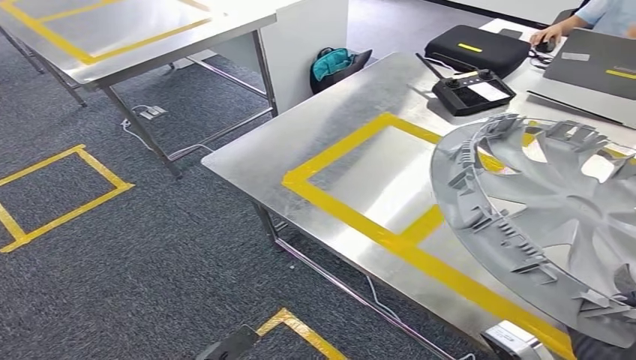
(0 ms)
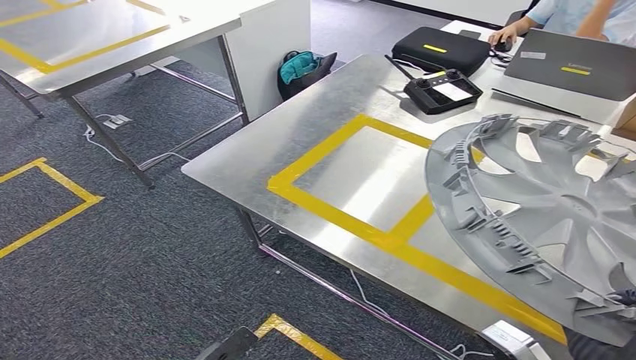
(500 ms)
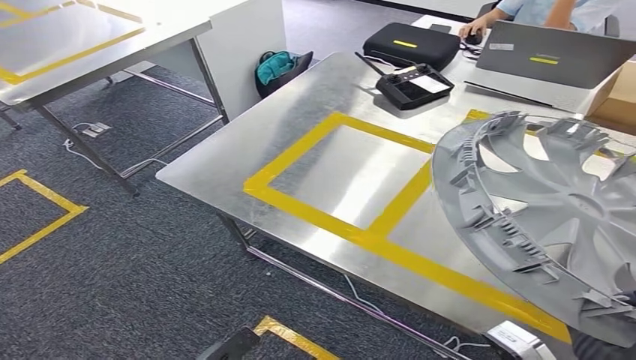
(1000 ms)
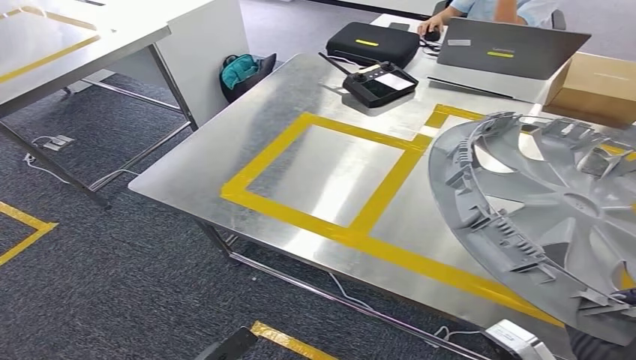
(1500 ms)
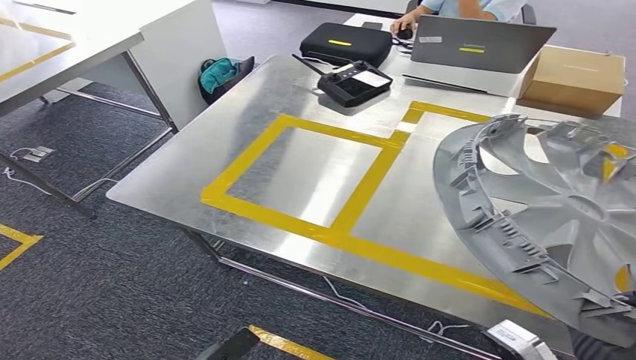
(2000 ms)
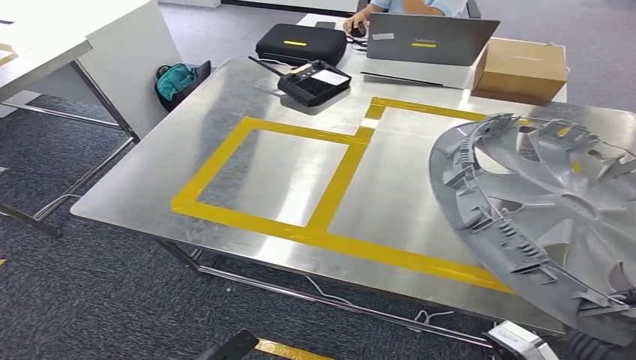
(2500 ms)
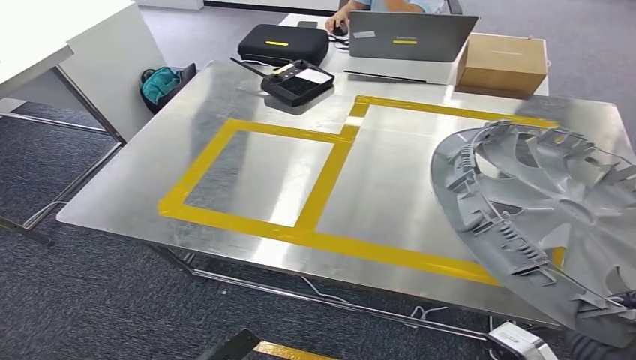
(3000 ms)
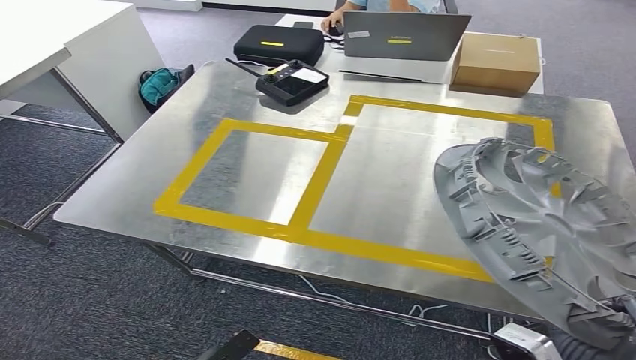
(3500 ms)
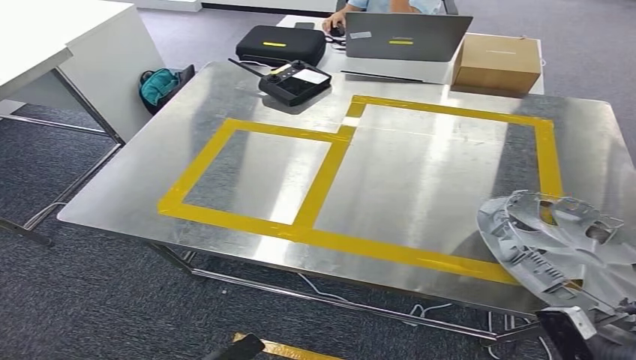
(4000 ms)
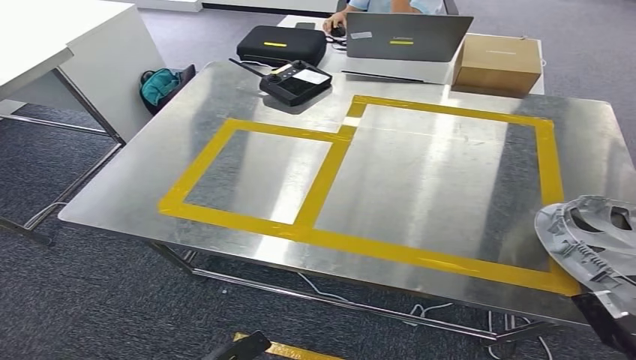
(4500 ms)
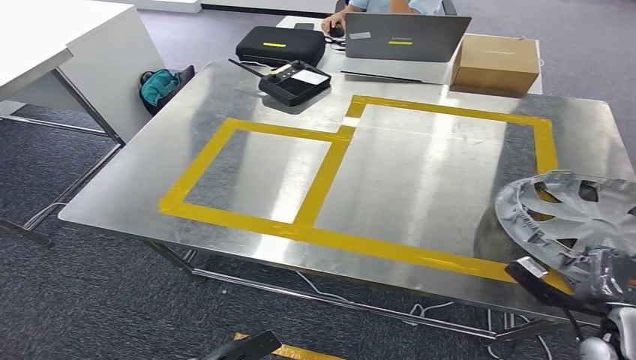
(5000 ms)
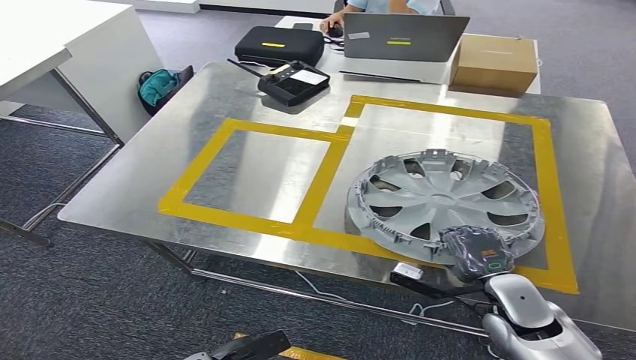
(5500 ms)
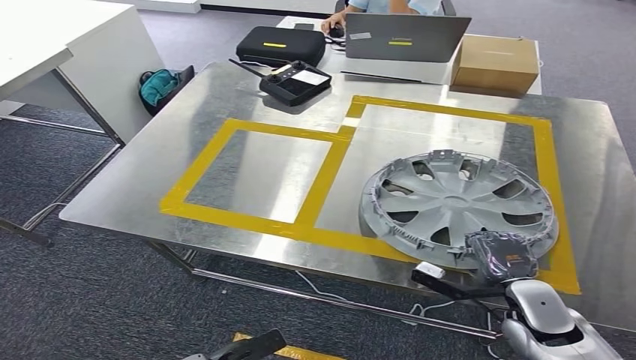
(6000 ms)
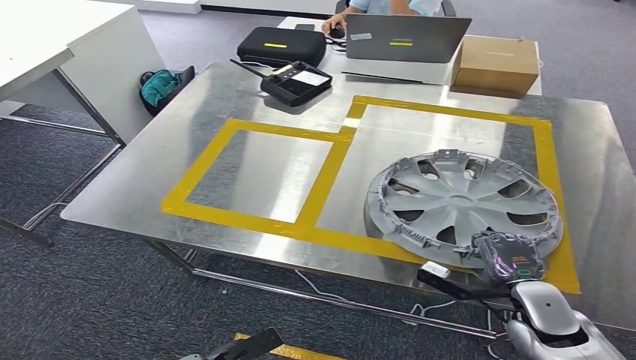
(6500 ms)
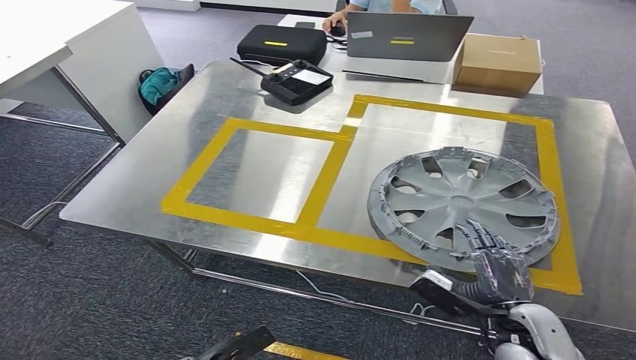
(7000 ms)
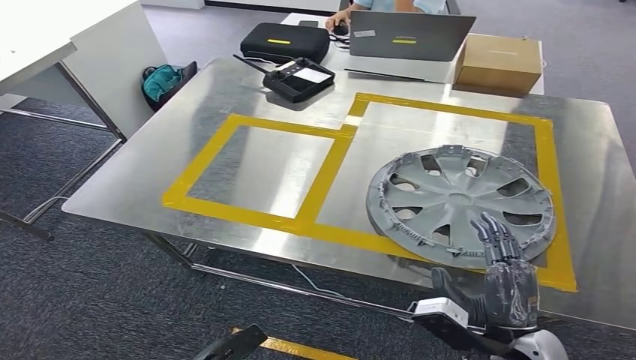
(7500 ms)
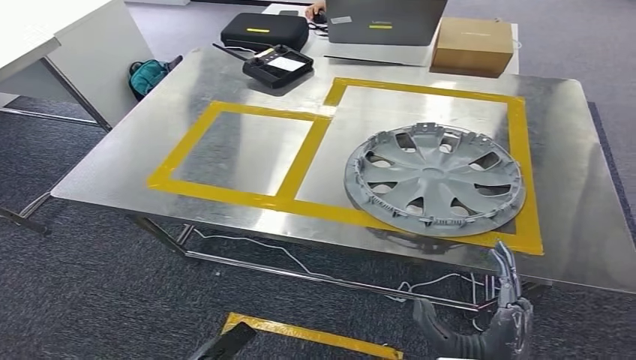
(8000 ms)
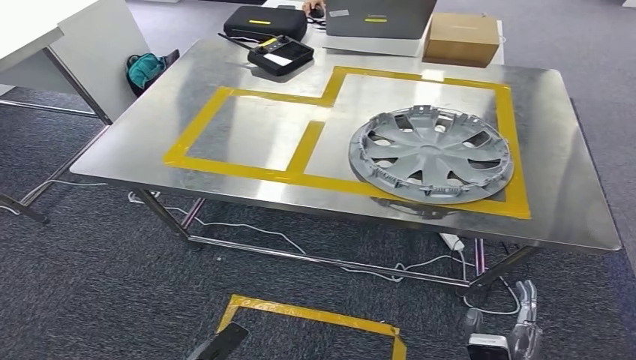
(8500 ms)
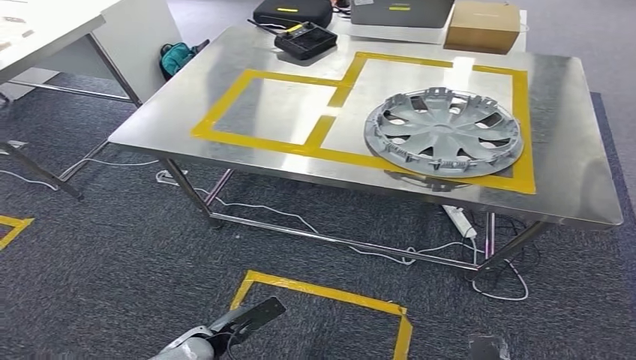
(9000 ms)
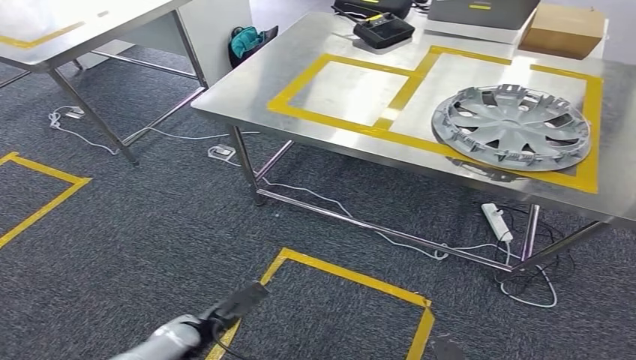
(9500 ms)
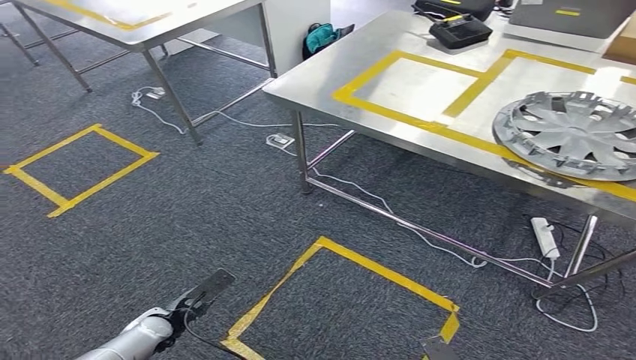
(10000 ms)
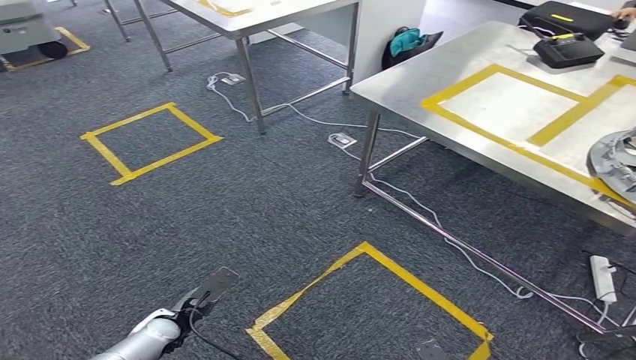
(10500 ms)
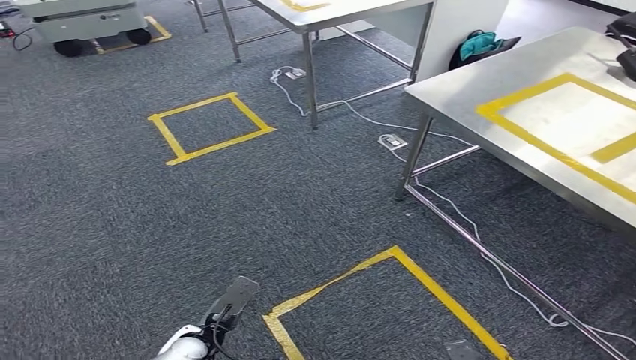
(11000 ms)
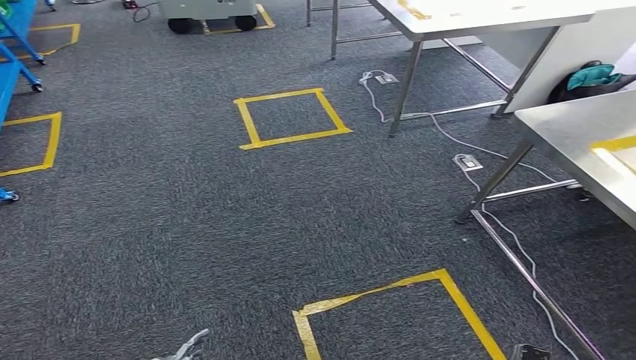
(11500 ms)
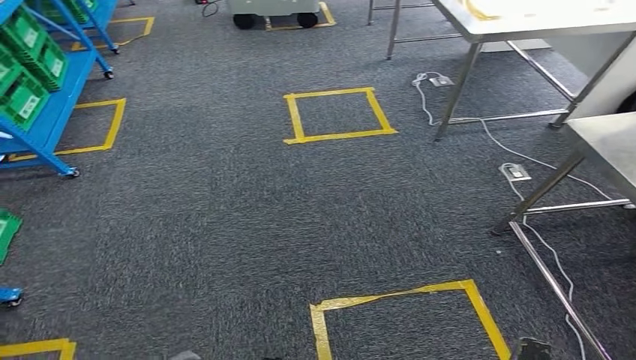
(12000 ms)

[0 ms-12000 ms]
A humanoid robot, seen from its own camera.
Step, 0 ms to 8500 ms: Insert the small parts into the corresponding slots on the workbench.
4000 ms to 6000 ms: The right hand shifts some 15 cm forward.

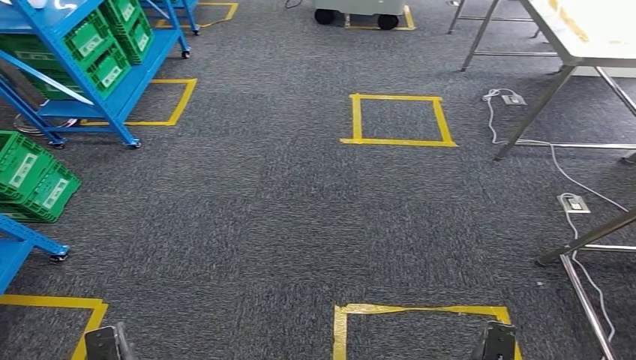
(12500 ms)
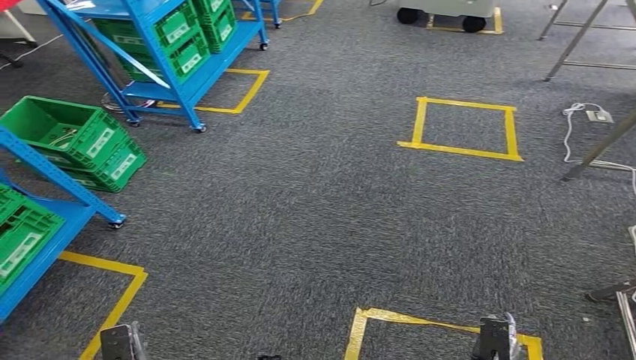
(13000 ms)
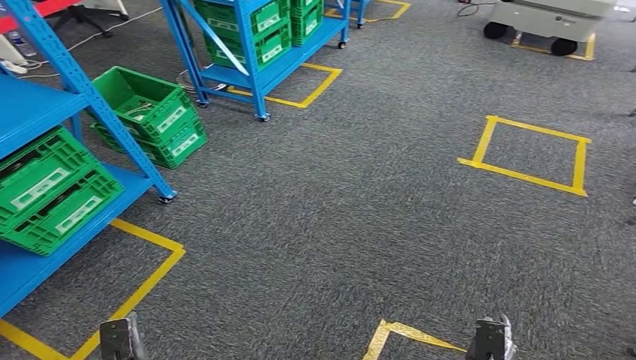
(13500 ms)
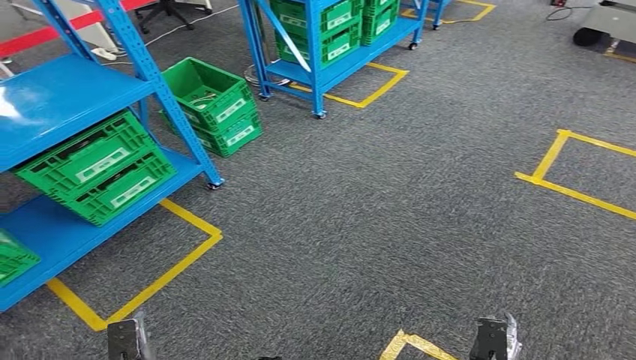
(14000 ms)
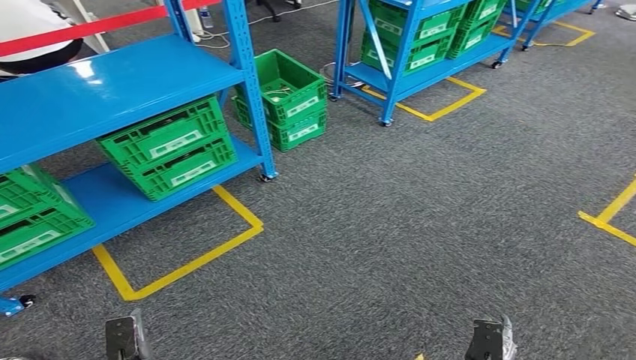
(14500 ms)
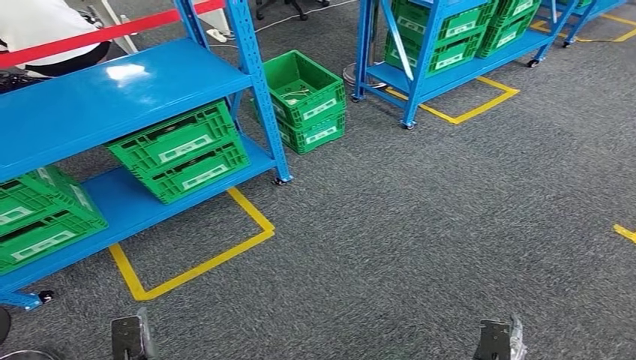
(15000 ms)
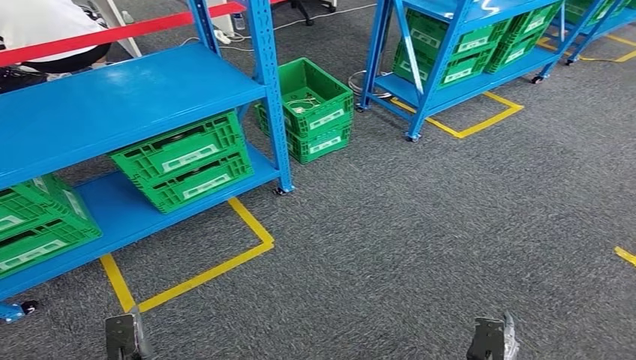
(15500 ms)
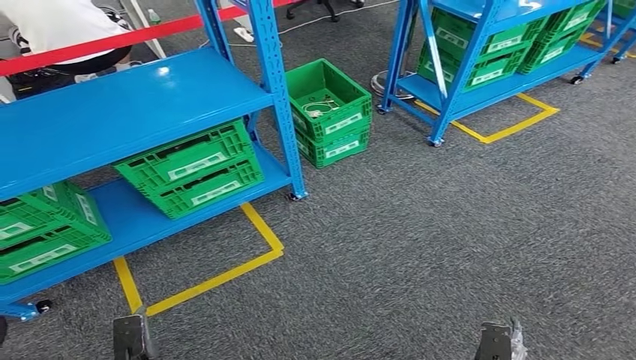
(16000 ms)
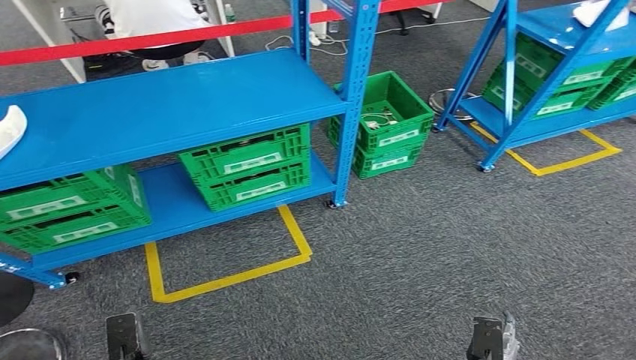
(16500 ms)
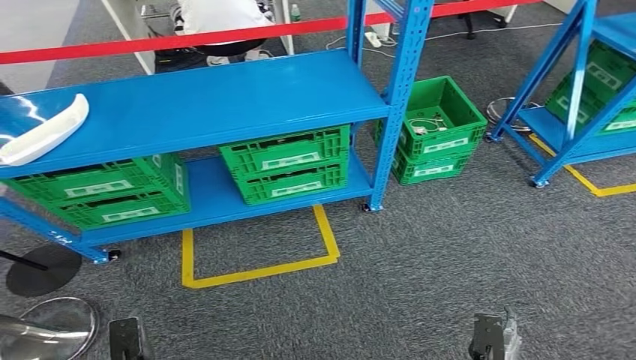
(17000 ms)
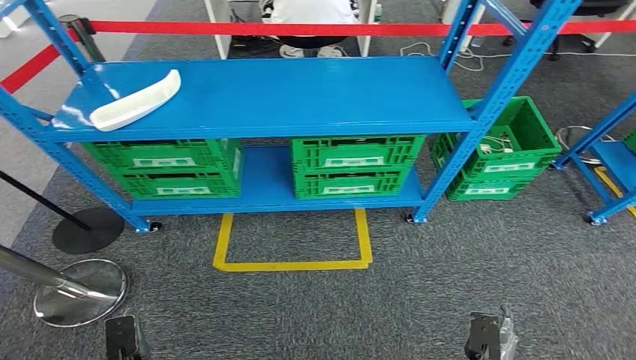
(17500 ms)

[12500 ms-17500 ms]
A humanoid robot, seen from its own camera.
Step, 12500 ms to 17500 ms: Return to the initial position at the workbench.

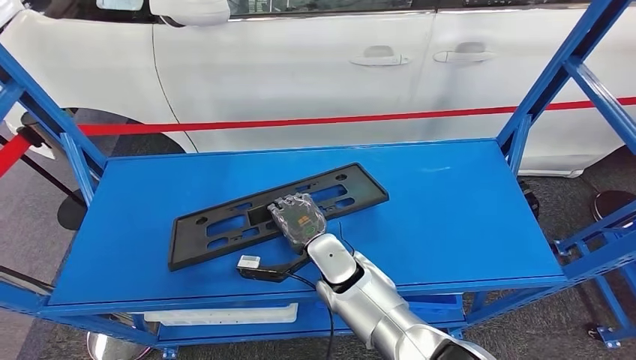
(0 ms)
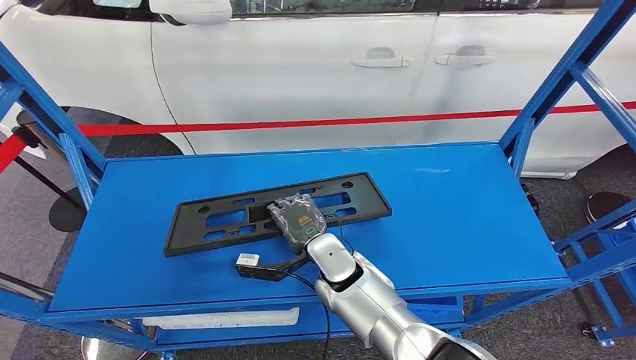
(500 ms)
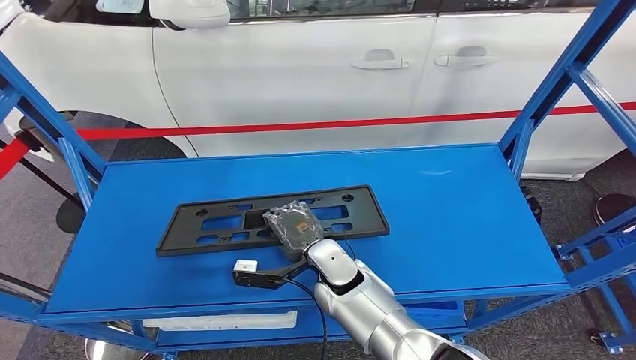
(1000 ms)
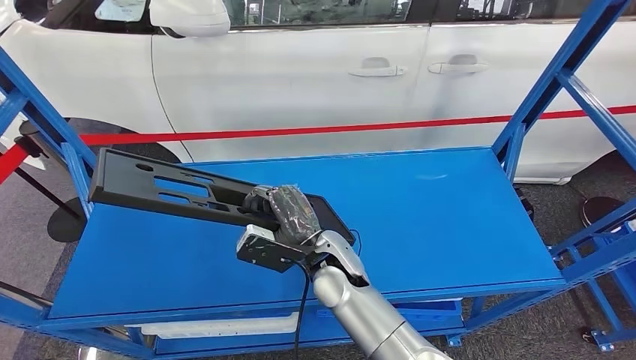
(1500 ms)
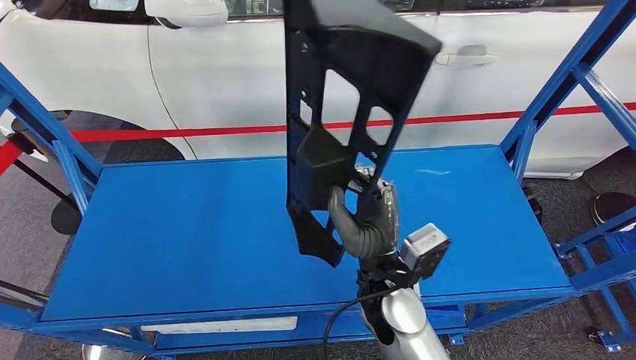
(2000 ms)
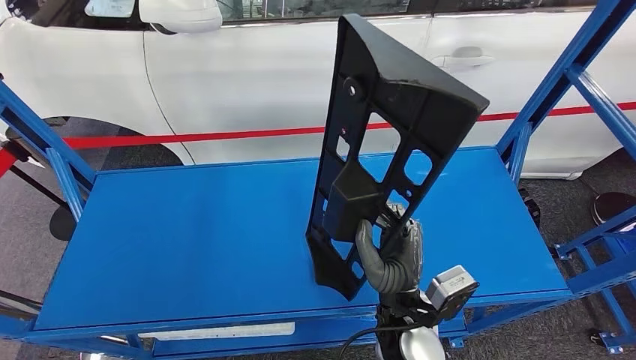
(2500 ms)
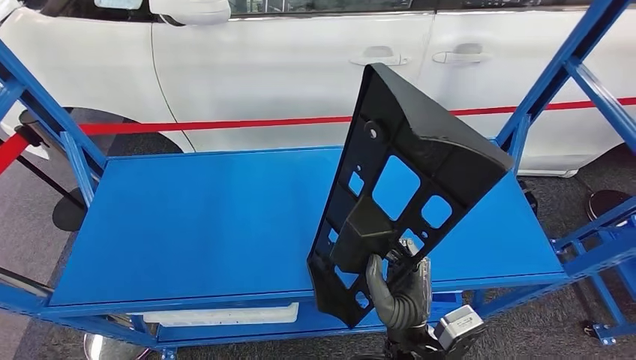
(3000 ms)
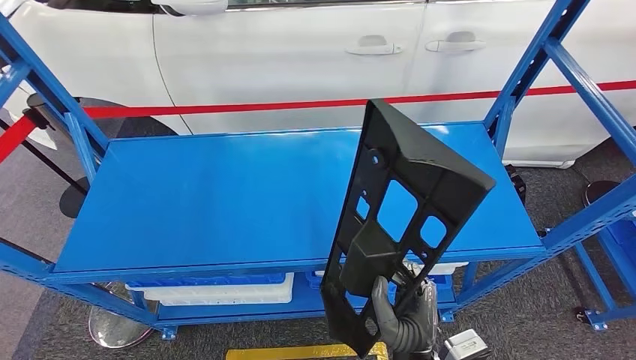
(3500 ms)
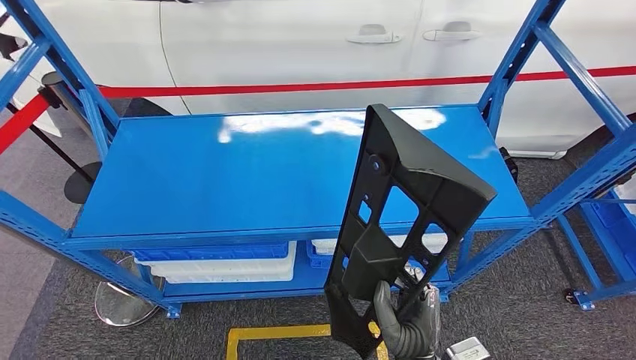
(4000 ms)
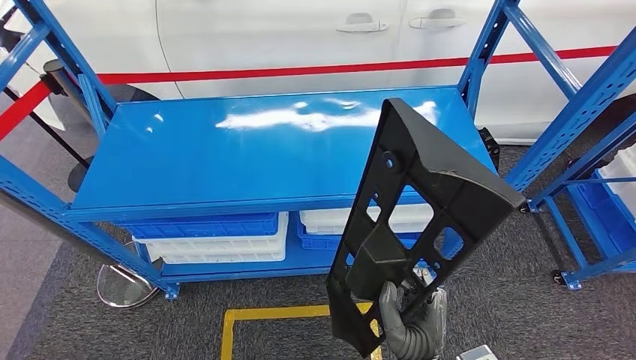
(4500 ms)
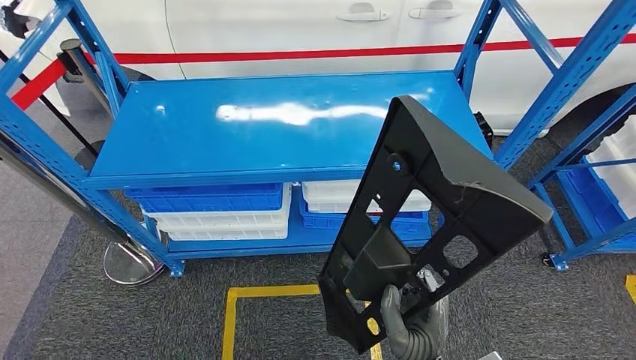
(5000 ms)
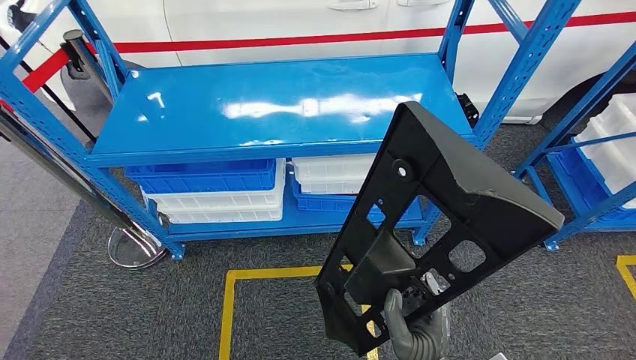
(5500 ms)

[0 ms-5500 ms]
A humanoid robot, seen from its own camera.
Step, 0 ms to 5000 ms: Pick up the large parts from the shelf.
